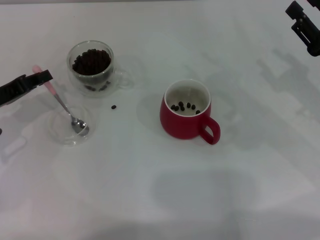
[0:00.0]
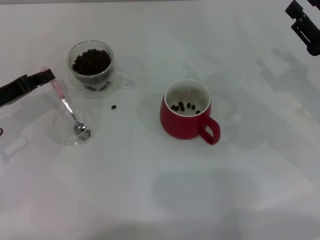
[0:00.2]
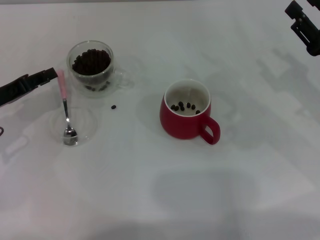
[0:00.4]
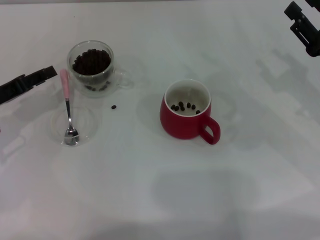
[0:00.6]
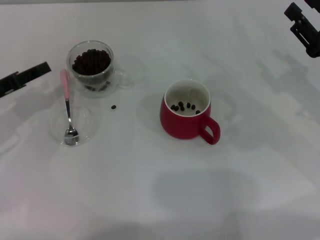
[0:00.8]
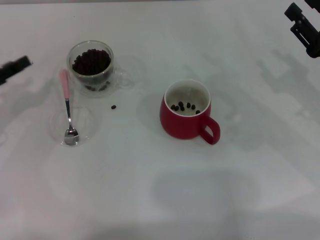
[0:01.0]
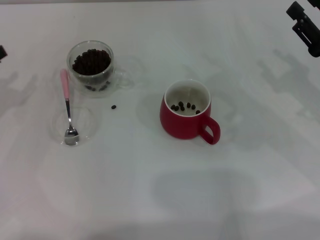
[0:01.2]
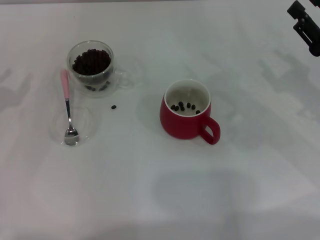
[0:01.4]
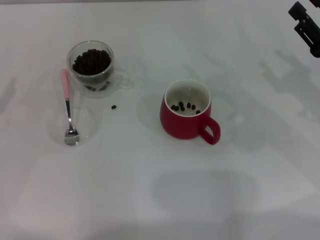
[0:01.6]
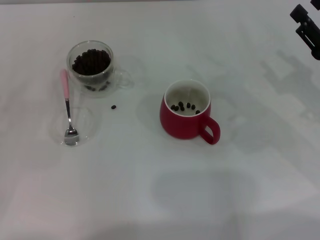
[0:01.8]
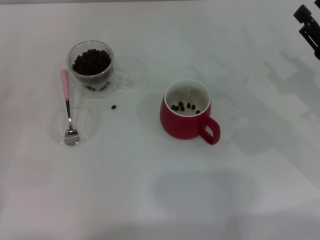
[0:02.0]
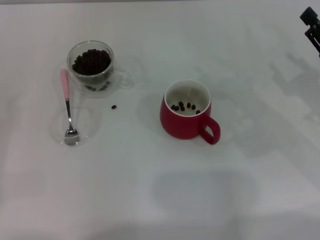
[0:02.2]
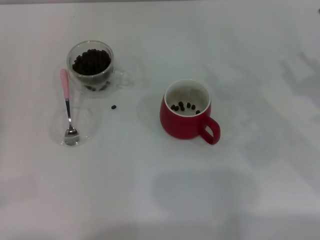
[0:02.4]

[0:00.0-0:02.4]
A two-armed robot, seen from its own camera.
Task of the whole recording: Use a pink spoon to take out the coffee beans from the glass and pour them into the red cup.
0:00.0 to 0:01.2: The left gripper ends up approximately 5 cm from where it was, and opens its fingers.
